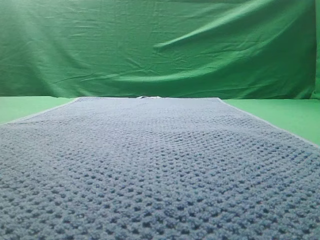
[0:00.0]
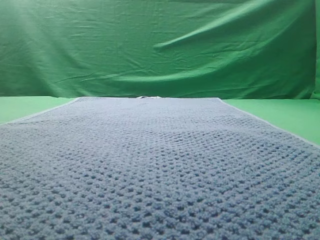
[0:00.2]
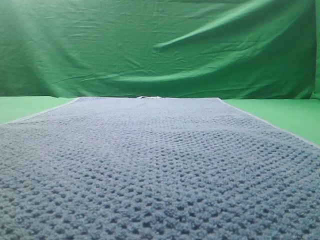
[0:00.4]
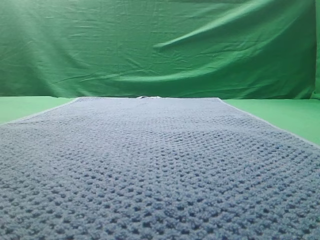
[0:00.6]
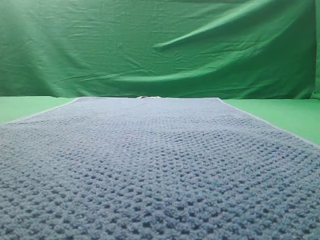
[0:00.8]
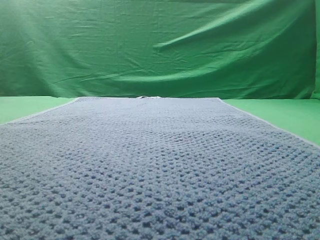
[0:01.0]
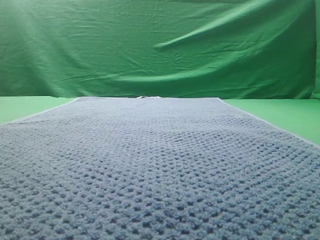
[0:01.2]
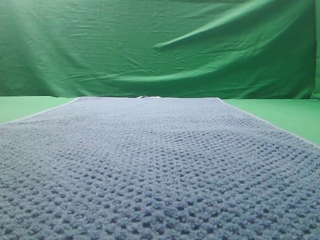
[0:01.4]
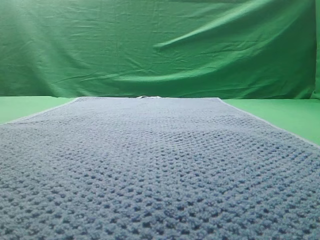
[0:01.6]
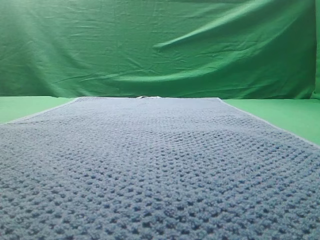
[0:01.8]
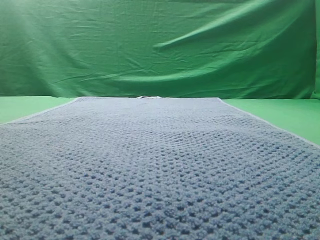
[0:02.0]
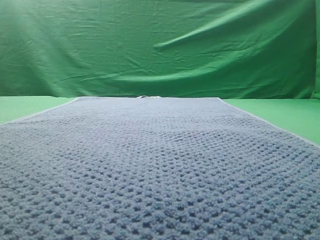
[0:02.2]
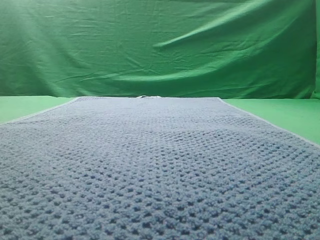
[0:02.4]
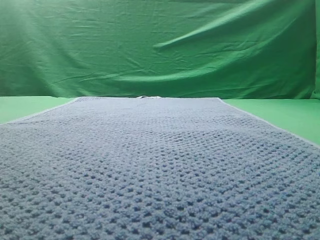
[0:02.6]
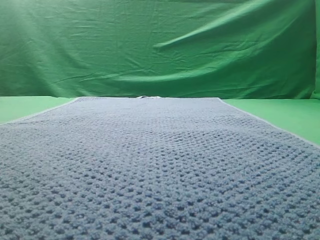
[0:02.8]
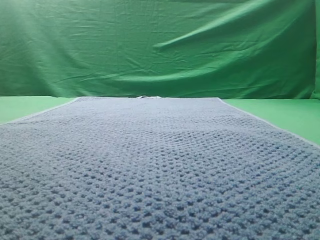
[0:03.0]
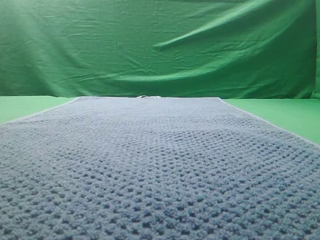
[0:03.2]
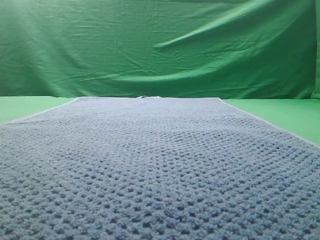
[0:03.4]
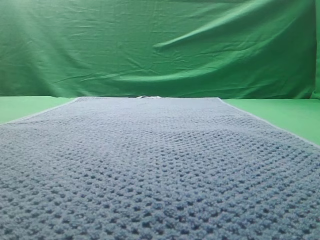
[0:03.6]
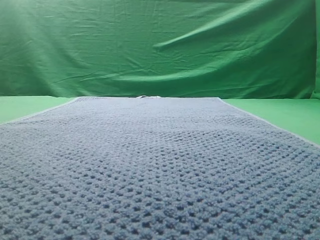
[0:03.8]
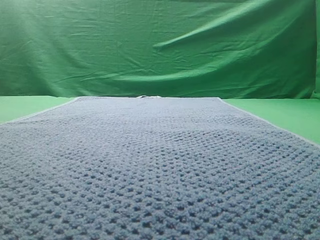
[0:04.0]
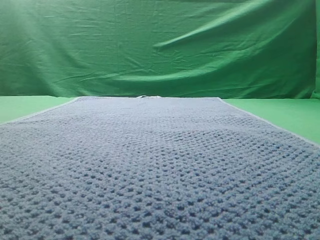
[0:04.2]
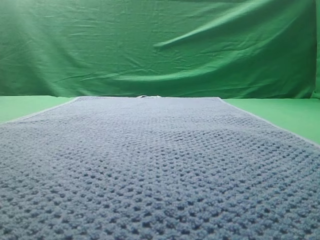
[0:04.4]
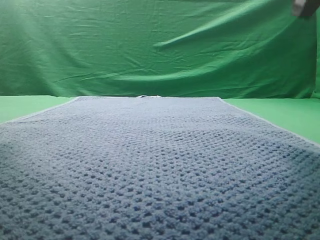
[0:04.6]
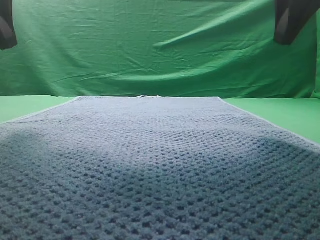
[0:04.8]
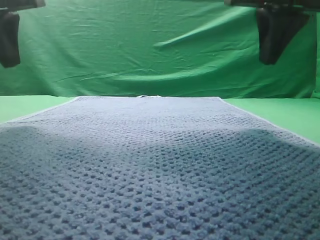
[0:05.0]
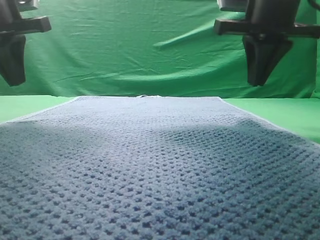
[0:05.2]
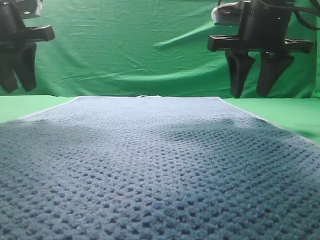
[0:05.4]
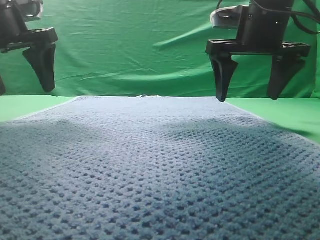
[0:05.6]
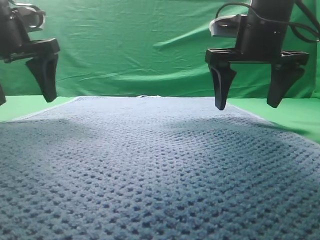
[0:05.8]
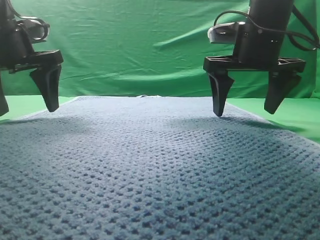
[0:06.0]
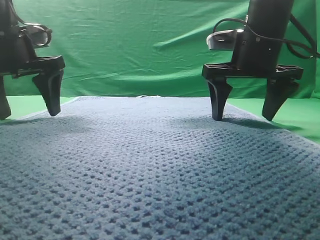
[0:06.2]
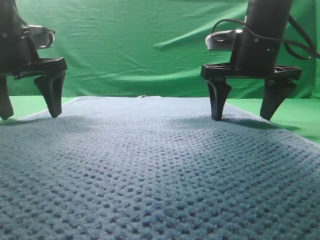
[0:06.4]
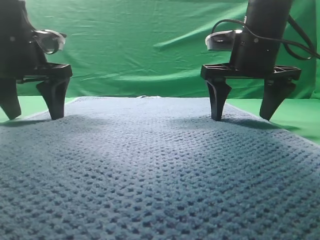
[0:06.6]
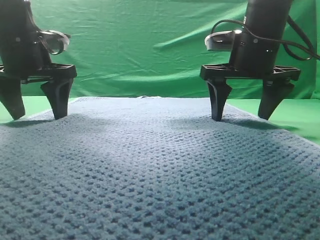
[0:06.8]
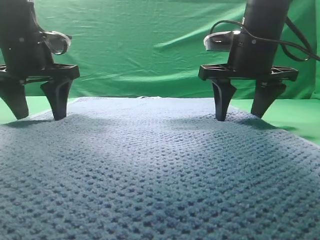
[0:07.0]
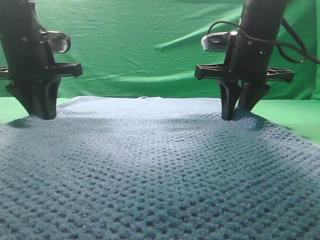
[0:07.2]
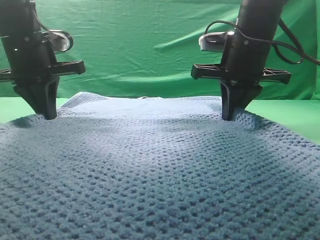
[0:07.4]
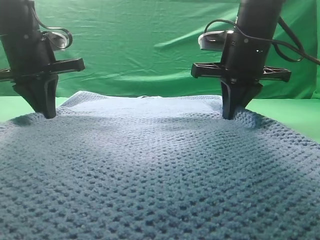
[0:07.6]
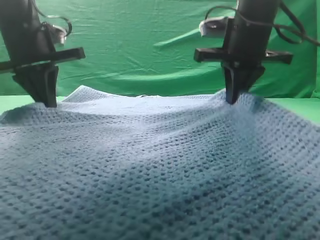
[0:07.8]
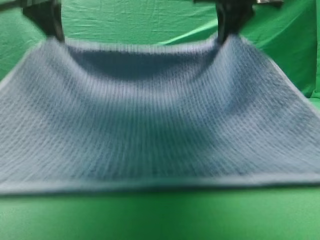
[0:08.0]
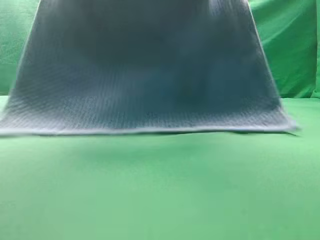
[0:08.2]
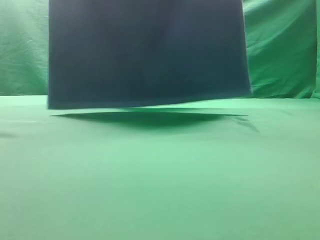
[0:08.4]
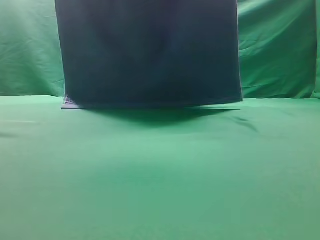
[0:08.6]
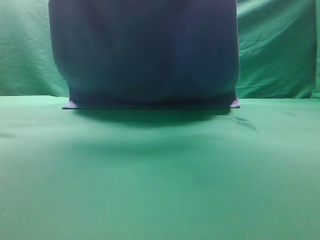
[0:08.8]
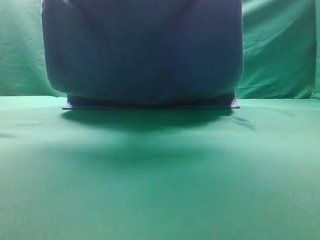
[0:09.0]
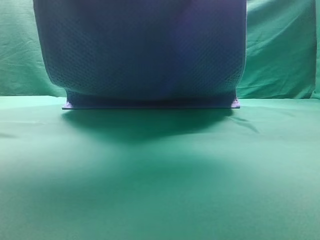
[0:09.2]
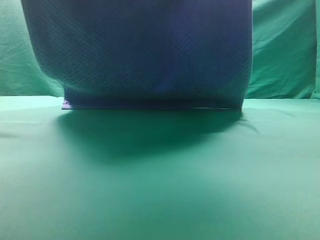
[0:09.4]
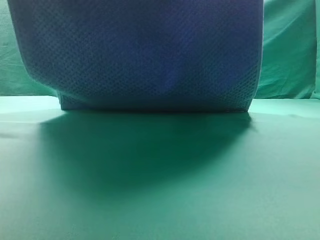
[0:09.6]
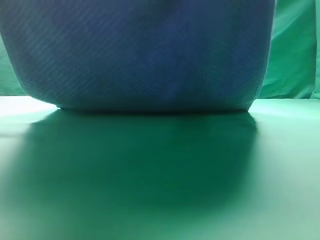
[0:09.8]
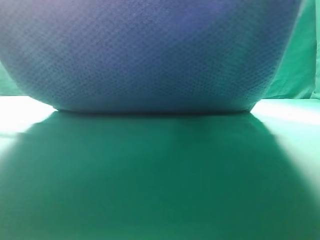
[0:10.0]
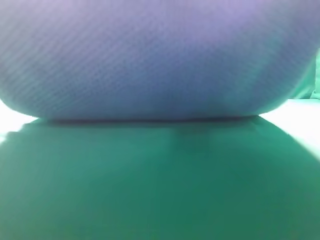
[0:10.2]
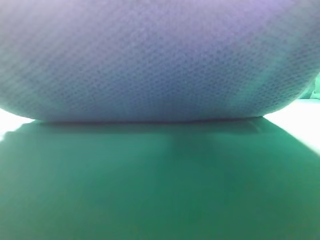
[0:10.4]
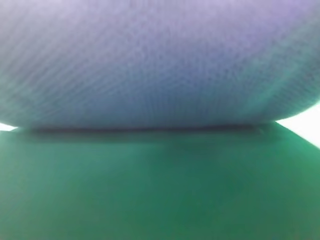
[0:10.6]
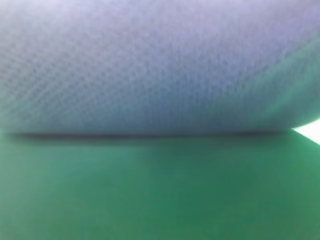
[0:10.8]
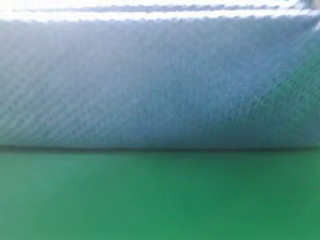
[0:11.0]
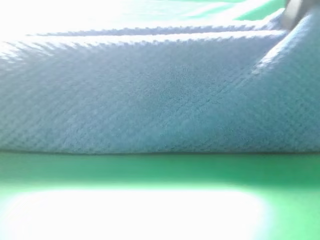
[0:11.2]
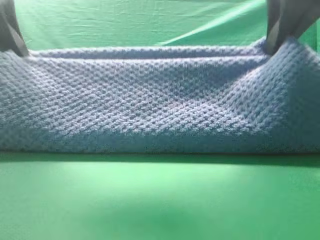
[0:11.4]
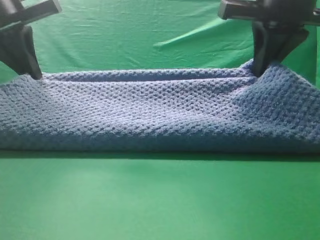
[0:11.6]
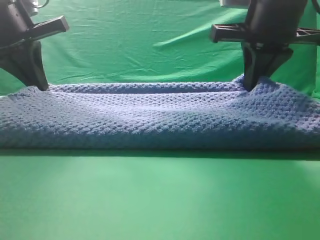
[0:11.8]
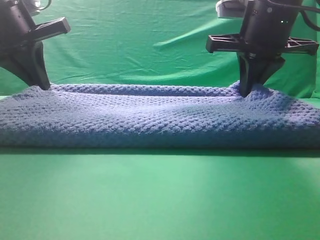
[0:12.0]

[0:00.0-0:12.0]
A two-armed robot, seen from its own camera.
Task of the whole recording: fold the towel on the table twice.
Step, 0:00.0 to 0:08.4: pick up the towel with two arm.
